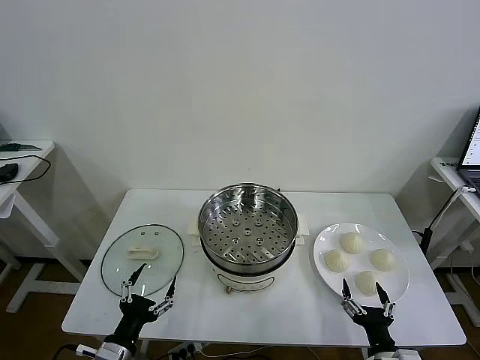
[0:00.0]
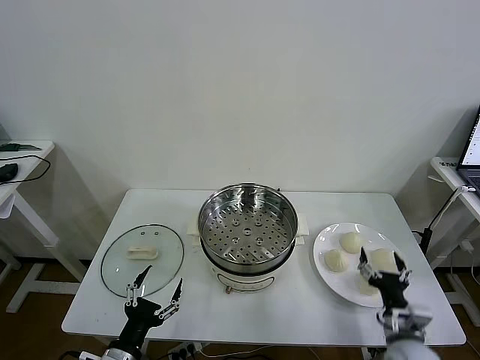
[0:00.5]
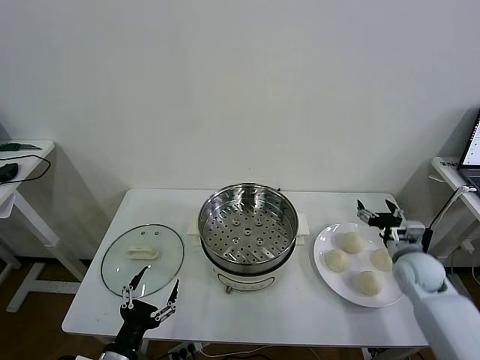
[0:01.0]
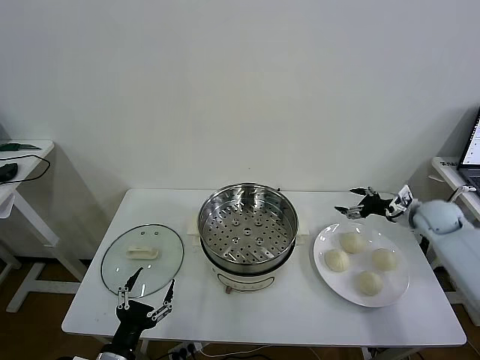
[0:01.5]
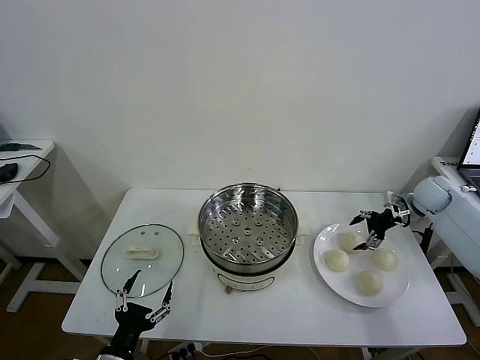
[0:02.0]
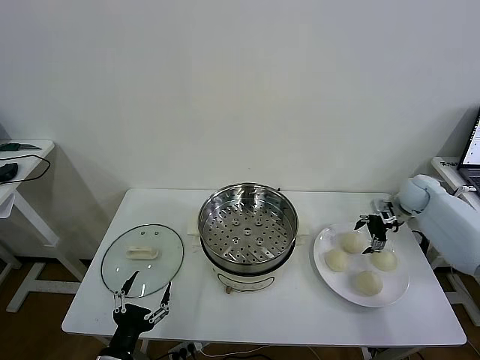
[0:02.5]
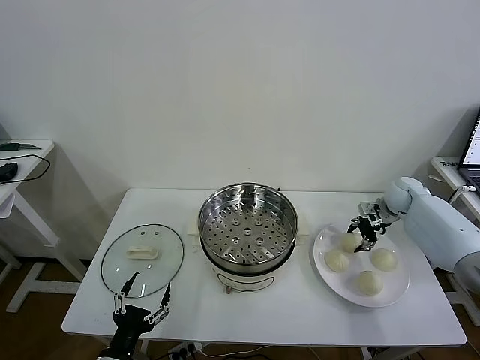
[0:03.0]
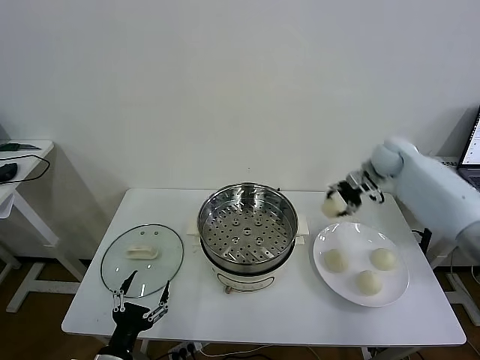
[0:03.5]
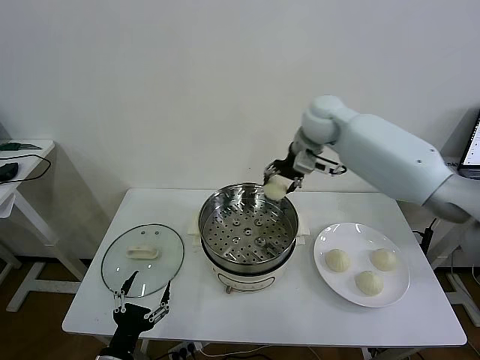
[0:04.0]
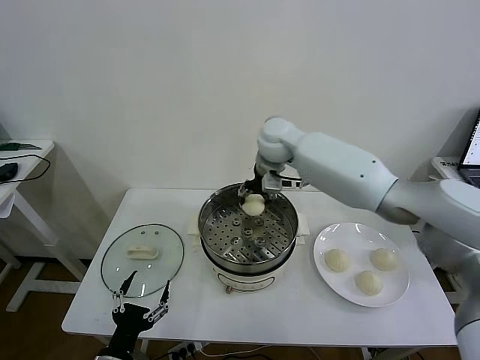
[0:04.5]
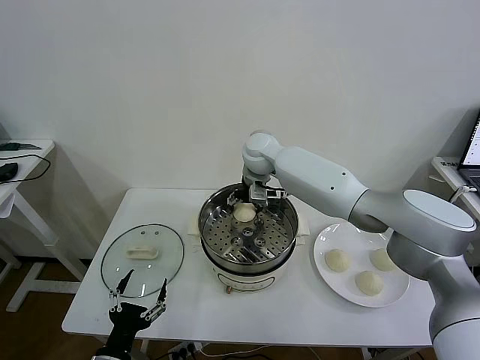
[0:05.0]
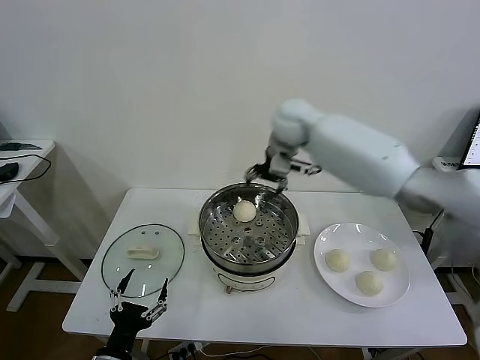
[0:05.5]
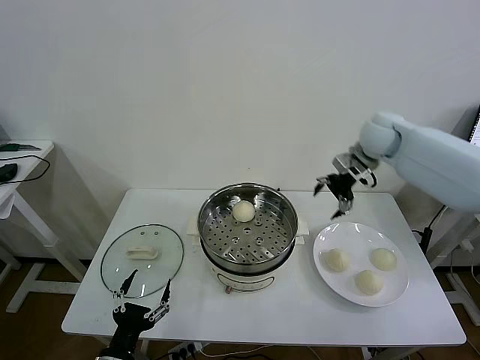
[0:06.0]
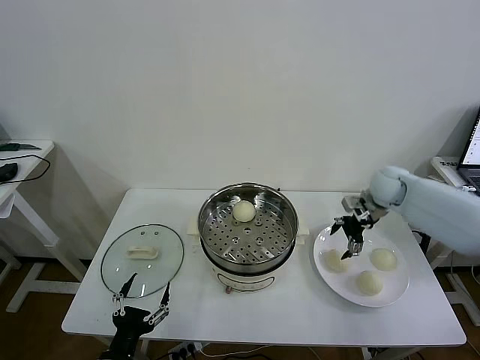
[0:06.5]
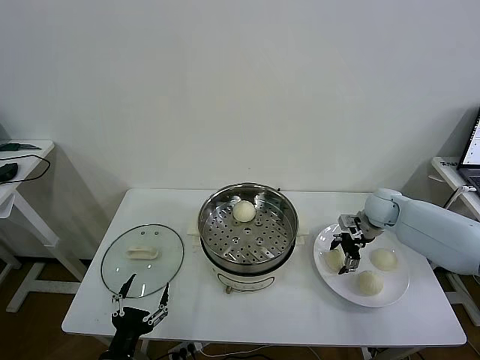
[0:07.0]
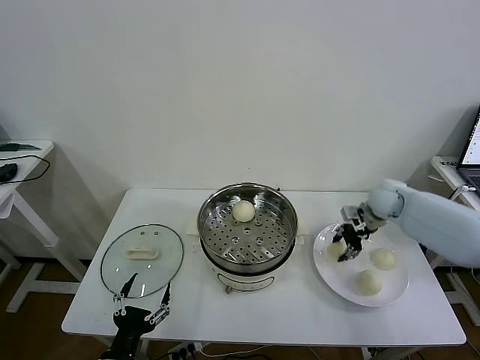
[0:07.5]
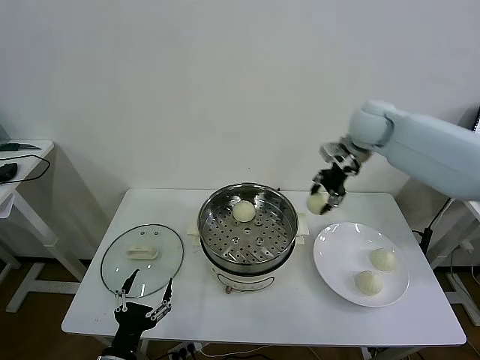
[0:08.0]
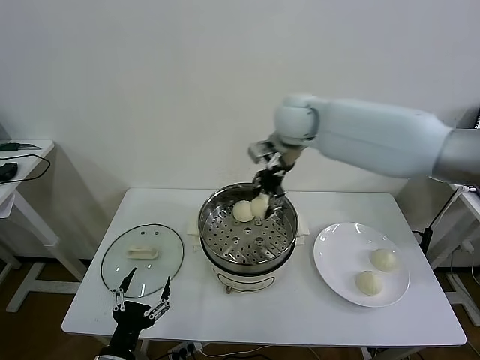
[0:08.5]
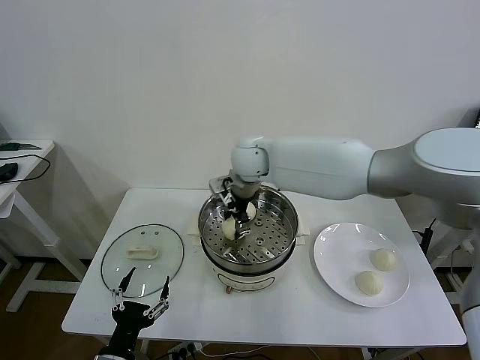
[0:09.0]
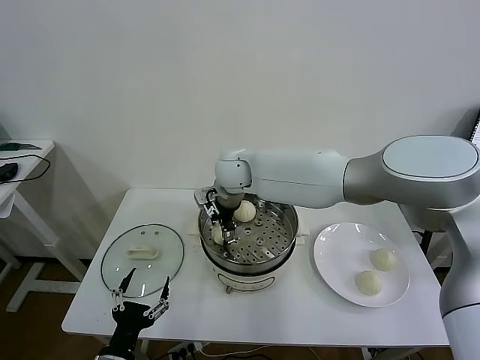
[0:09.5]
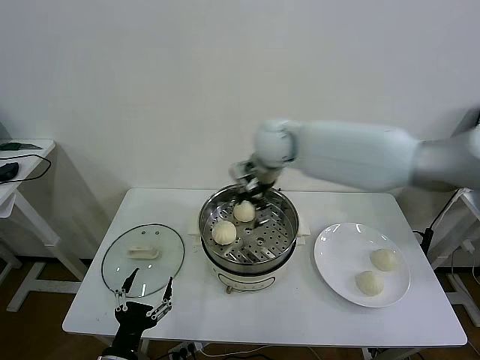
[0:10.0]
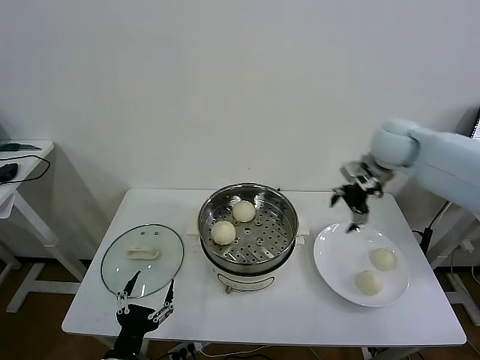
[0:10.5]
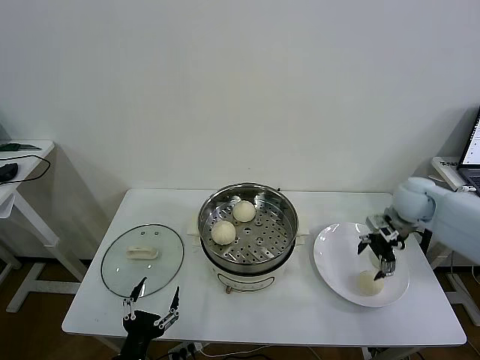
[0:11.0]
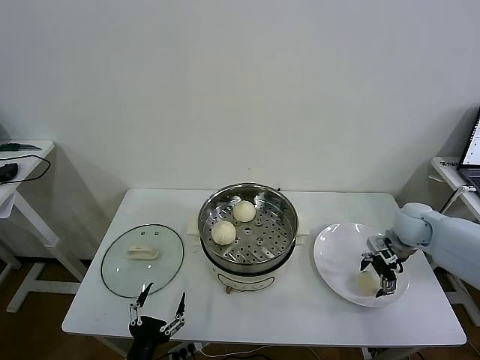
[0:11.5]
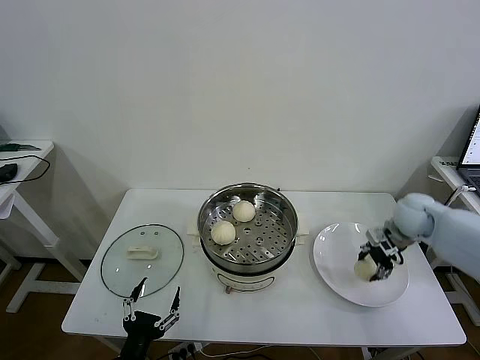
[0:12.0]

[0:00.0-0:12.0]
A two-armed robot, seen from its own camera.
Task of the whole recording: take steamed baozi put them in steamer then cover it.
Step, 0:00.0 to 0:02.5: Grasp the baozi in the plate with right gripper.
Step, 0:03.5 to 0:05.0: Place the baozi on the steamer with right gripper.
Step, 0:05.5 to 0:07.0: Grasp the baozi in the plate with right gripper.
Step, 0:07.5 to 0:09.5: Place the baozi on the steamer with right gripper.
Step, 0:10.0 to 0:11.5: Grasp the baozi in the plate with right gripper.
0:02.0 to 0:04.0: The right gripper travels to the left and upward by some 40 cm, and closes.
0:04.0 to 0:06.0: The right gripper is displaced to the right by approximately 20 cm, and opens its fingers.
0:06.0 to 0:08.0: The right gripper travels to the left by approximately 10 cm, travels downward and back again, roughly 15 cm each way, and closes.
0:08.0 to 0:10.0: The right gripper shifts approximately 15 cm to the left, and opens its fingers.
0:10.0 to 0:12.0: The right gripper is displaced to the right and downward by approximately 35 cm, and closes its fingers.

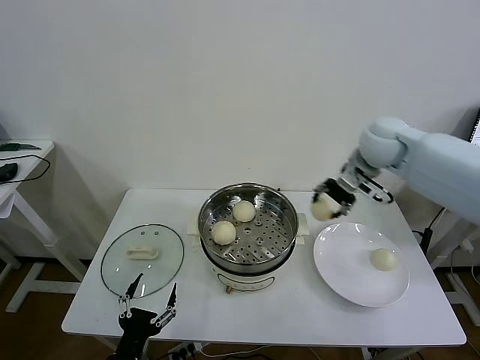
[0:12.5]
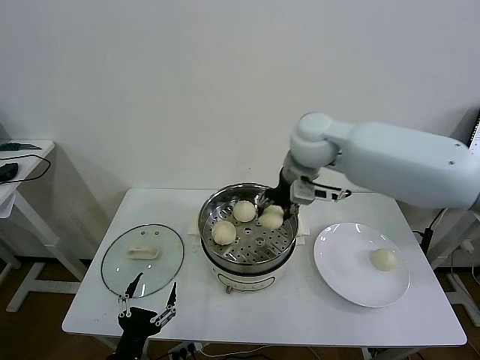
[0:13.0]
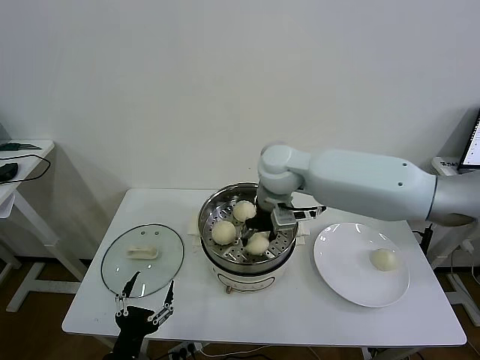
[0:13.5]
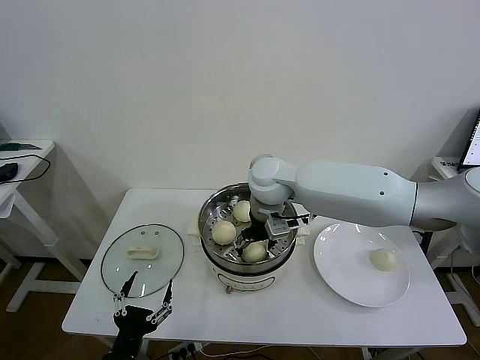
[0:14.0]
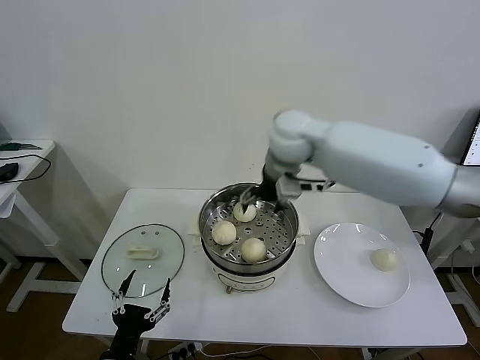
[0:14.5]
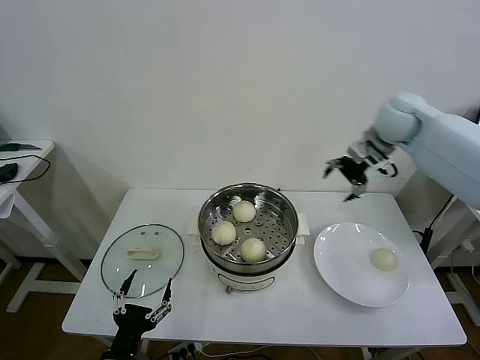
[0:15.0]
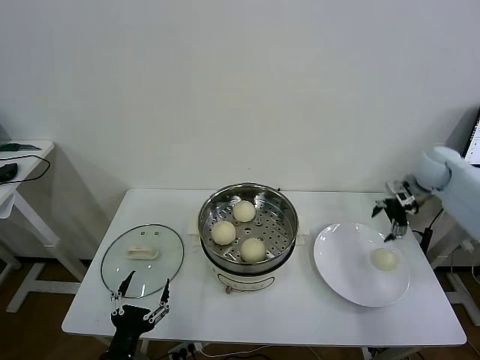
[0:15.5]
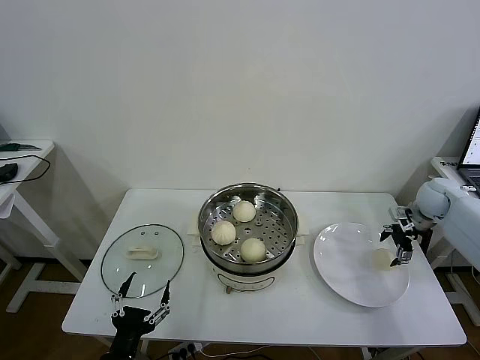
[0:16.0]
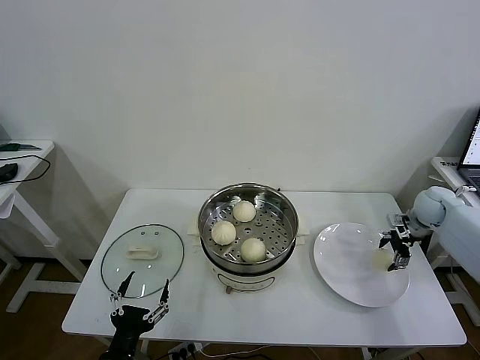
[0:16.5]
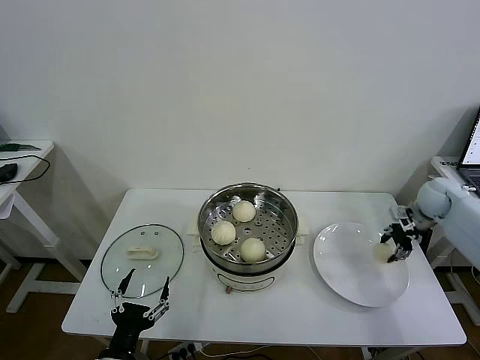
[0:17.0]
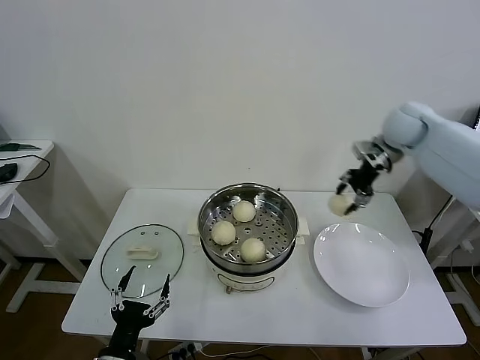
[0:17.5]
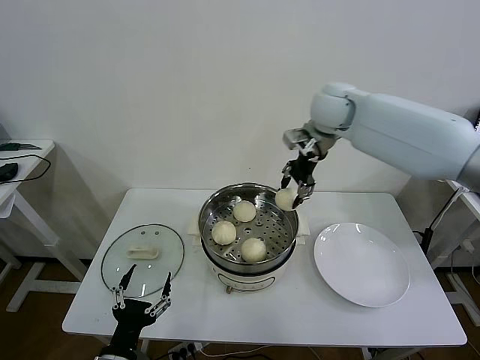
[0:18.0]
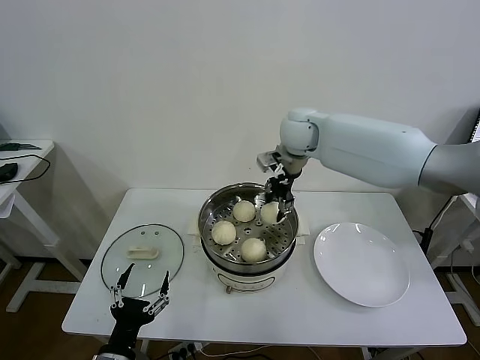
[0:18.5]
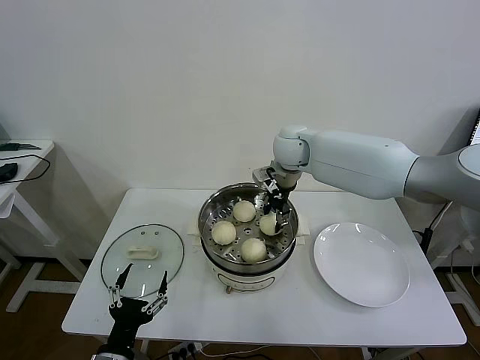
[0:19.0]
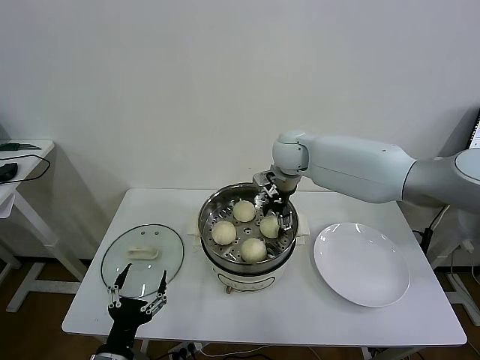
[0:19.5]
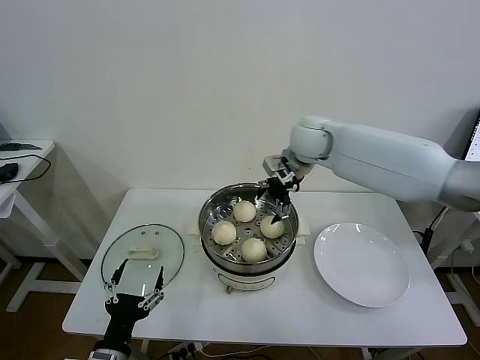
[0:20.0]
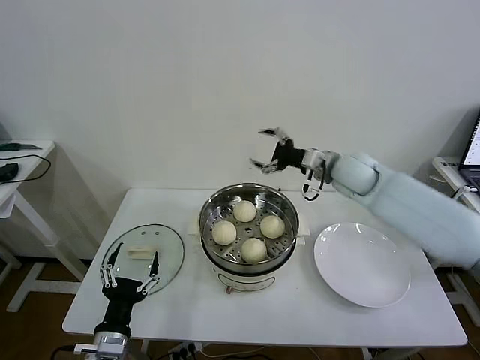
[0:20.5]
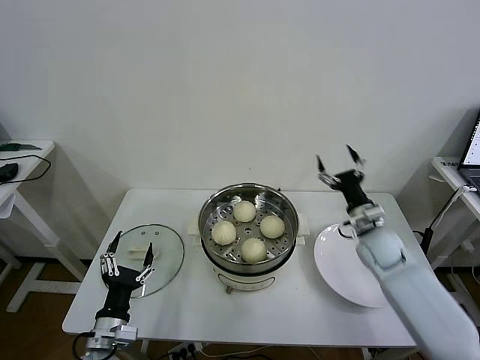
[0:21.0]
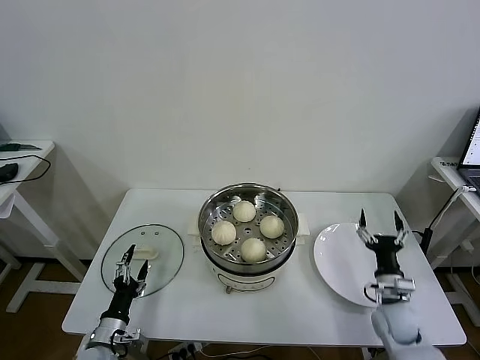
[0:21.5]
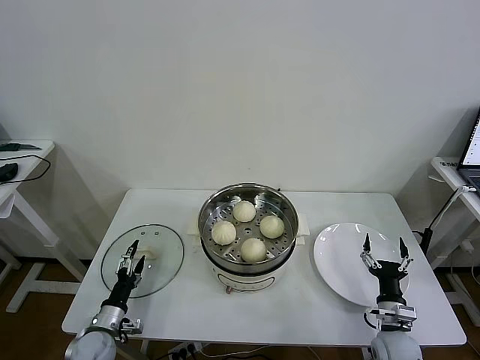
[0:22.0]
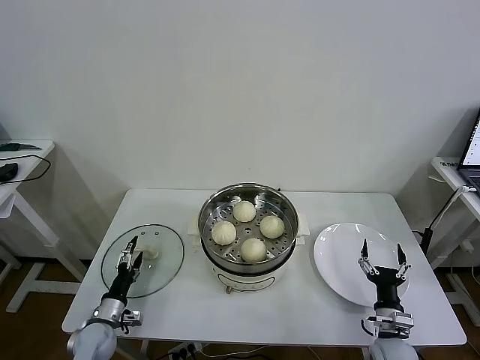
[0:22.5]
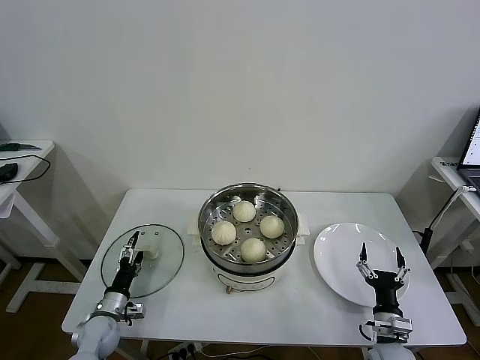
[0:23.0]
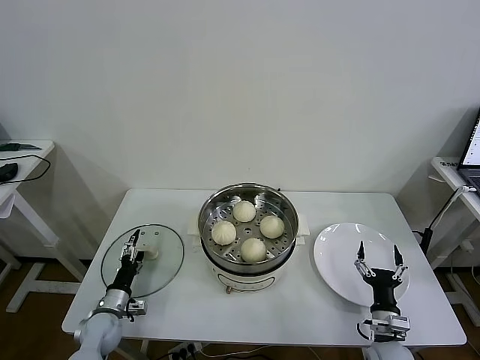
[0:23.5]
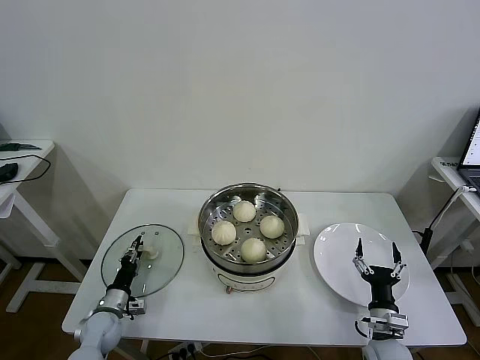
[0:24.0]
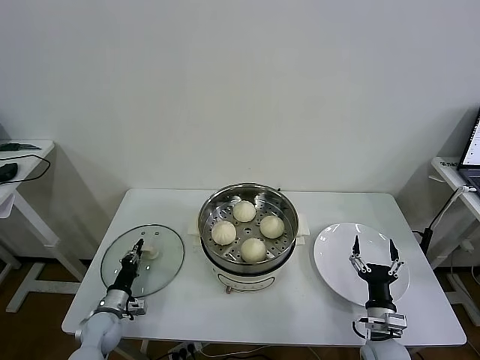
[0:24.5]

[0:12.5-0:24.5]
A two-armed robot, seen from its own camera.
Task of the whole recording: take steamed baozi put them in steamer then cover it.
Step, 0:12.5 to 0:13.5: Place the baozi on the steamer with right gripper.
Step, 0:14.0 to 0:16.5: Grasp the baozi in the plate with right gripper.
Step, 0:17.0 to 0:19.5: Place the baozi on the steamer with right gripper.
0:12.5 to 0:14.5: The right gripper goes some 15 cm to the left, and opens.
0:14.5 to 0:16.5: The right gripper shifts roughly 40 cm to the right and downward.
0:16.5 to 0:18.5: The right gripper moves to the left and upward, some 40 cm, and closes up.
0:18.5 to 0:20.5: The right gripper shifts roughly 15 cm to the right, downward and backward, and opens its fingers.
0:20.5 to 0:22.5: The right gripper moves downward and backward, roughly 40 cm, while the left gripper moves downward, forward and to the left, approximately 20 cm.
0:22.5 to 0:24.5: The left gripper closes its fingers.

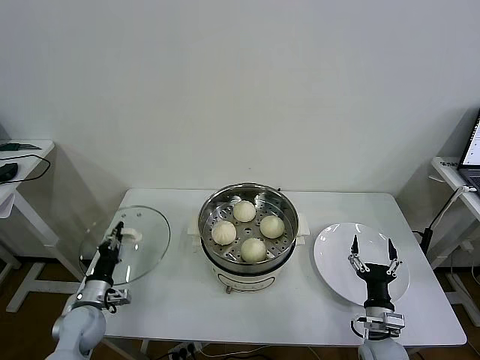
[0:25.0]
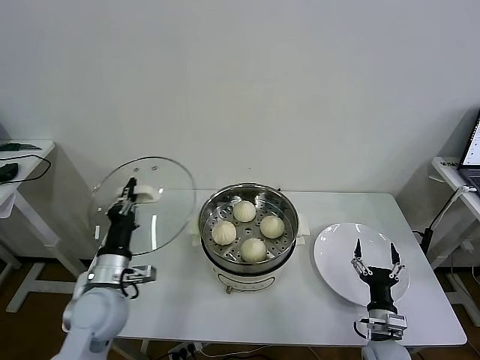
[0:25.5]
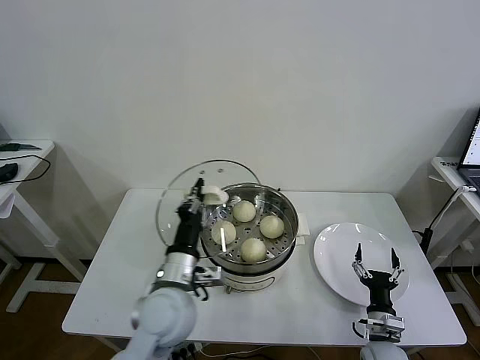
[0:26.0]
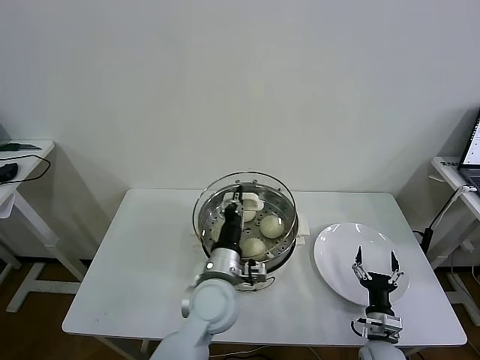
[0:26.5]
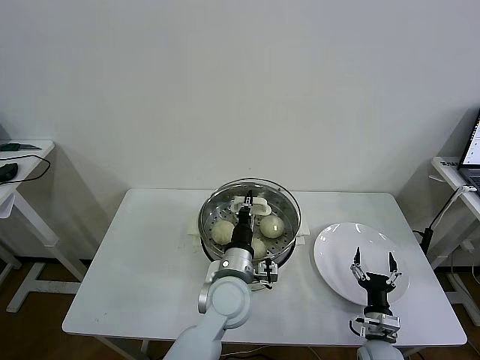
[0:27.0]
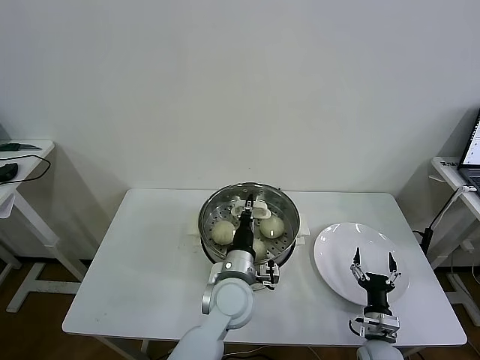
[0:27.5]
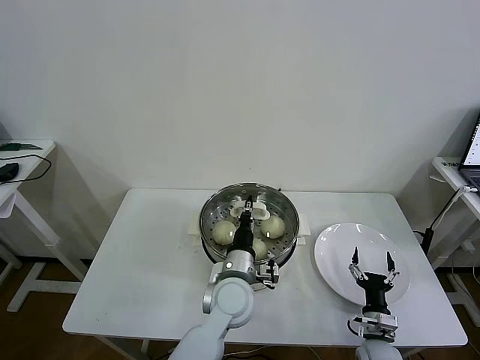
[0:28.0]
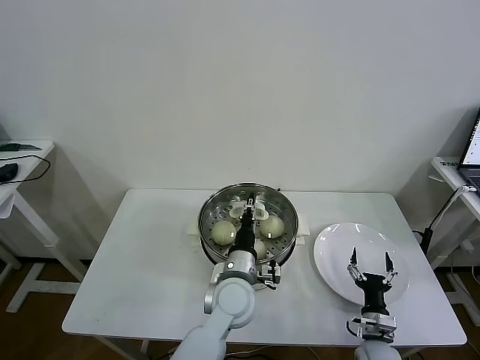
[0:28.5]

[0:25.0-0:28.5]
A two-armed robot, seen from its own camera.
Task of the whole recording: take steamed baozi put them in steamer then cover it.
Step, 0:25.0 to 0:28.5: Place the pot lid on the steamer with left gripper.
0:25.0 to 0:27.0: The left gripper is displaced to the right by some 35 cm.
0:27.0 to 0:28.5: The grippers move only a little.
